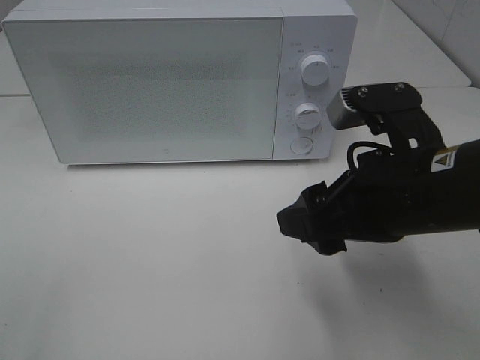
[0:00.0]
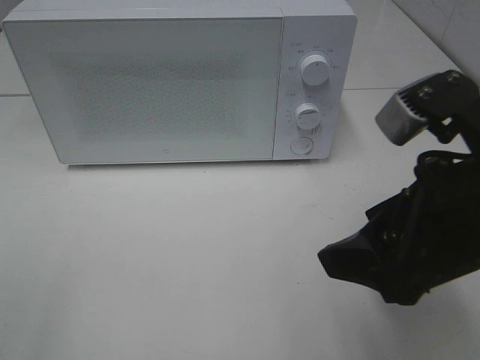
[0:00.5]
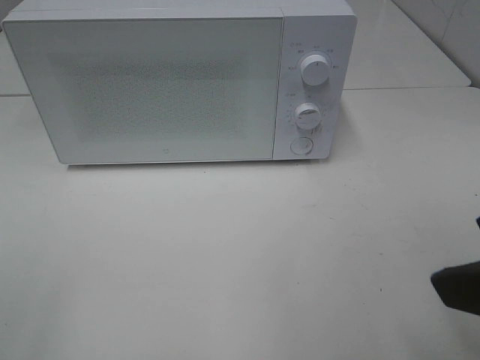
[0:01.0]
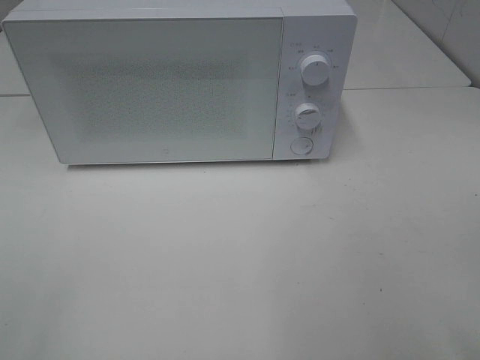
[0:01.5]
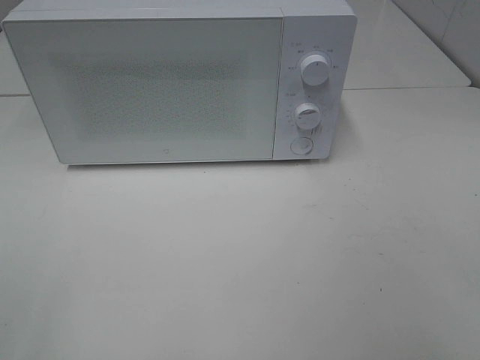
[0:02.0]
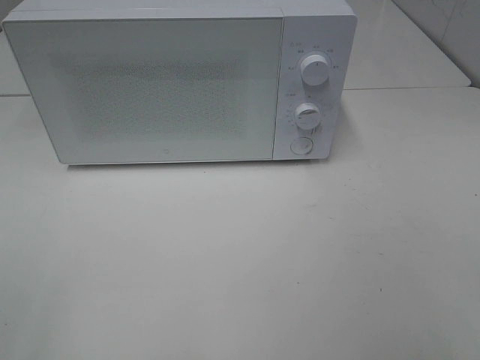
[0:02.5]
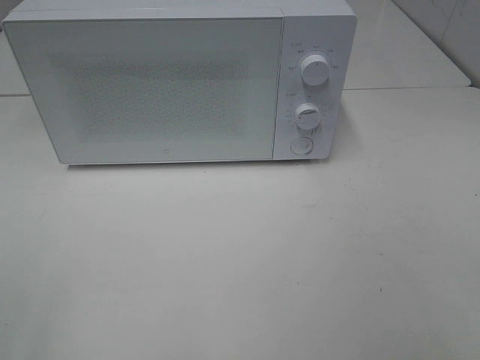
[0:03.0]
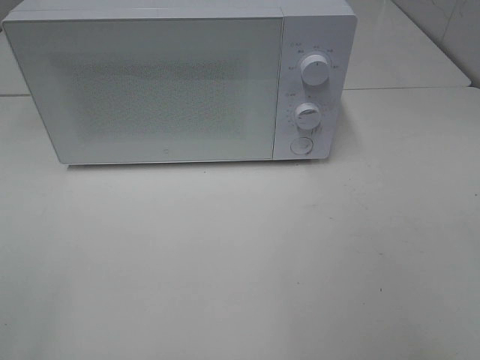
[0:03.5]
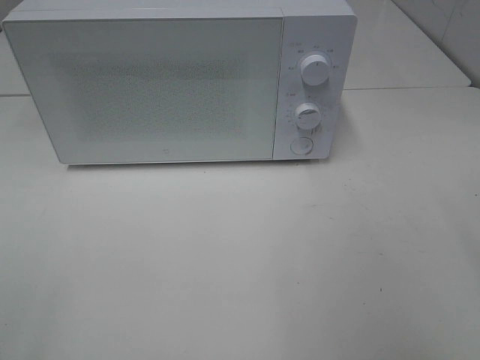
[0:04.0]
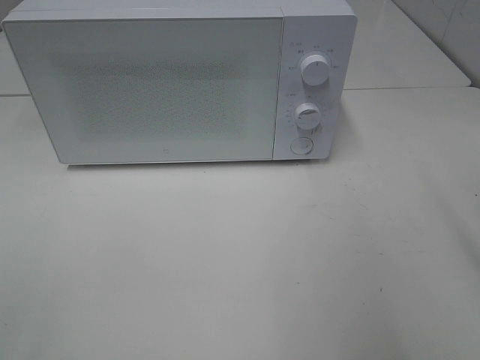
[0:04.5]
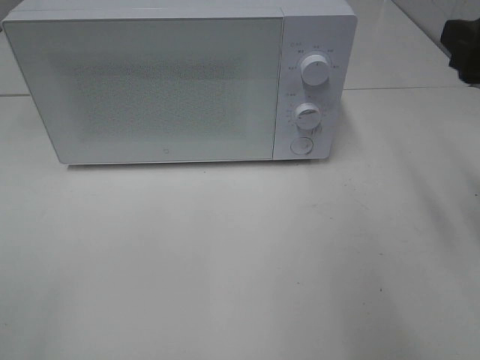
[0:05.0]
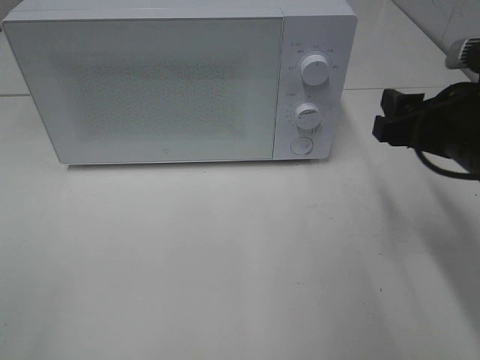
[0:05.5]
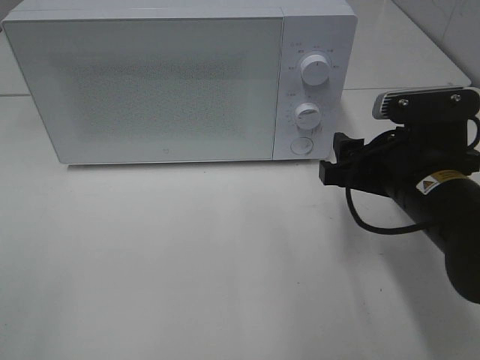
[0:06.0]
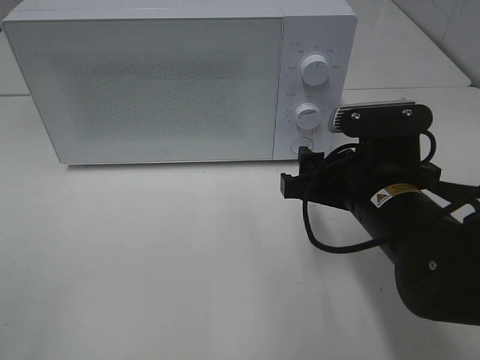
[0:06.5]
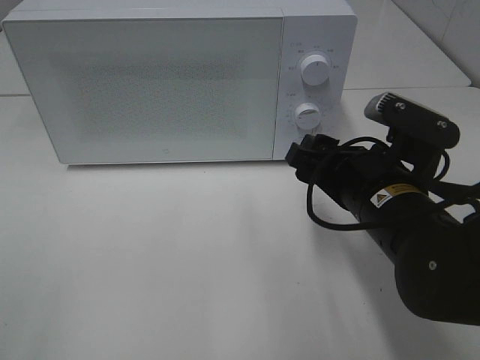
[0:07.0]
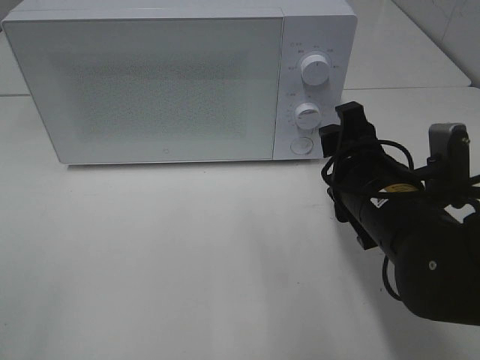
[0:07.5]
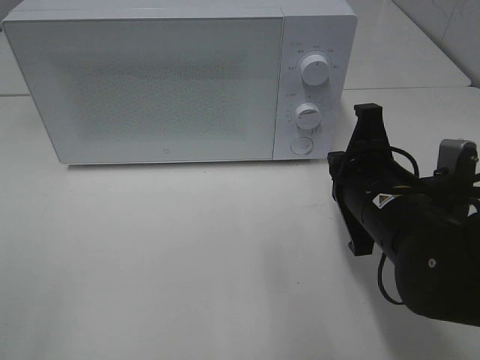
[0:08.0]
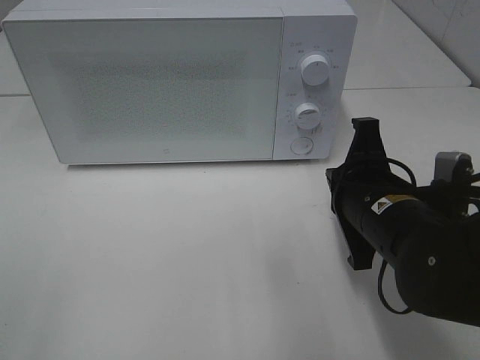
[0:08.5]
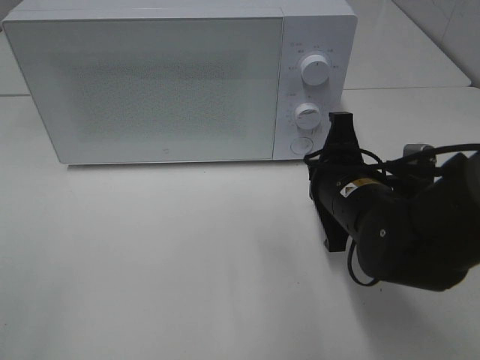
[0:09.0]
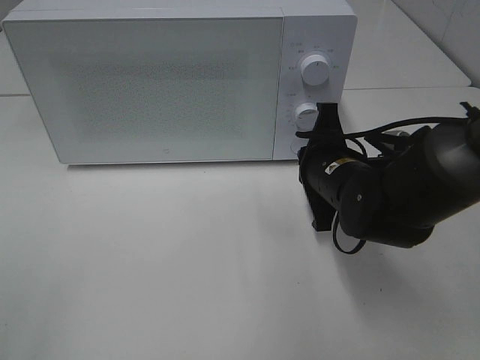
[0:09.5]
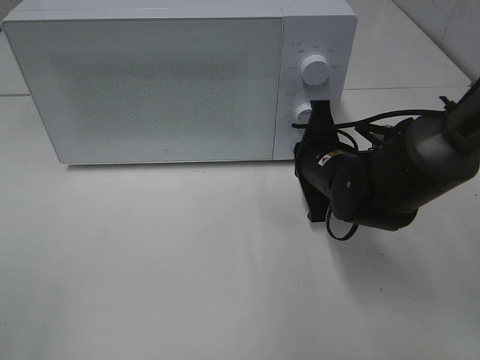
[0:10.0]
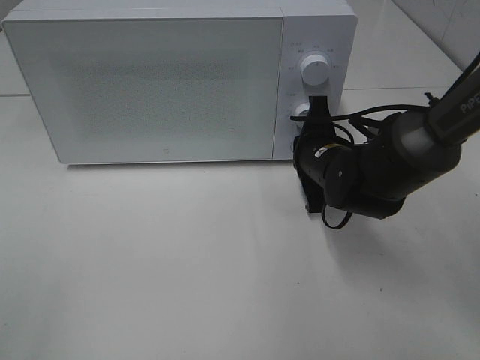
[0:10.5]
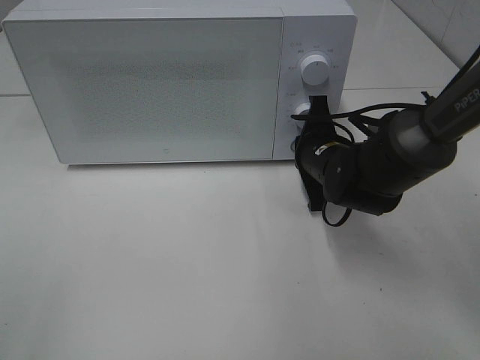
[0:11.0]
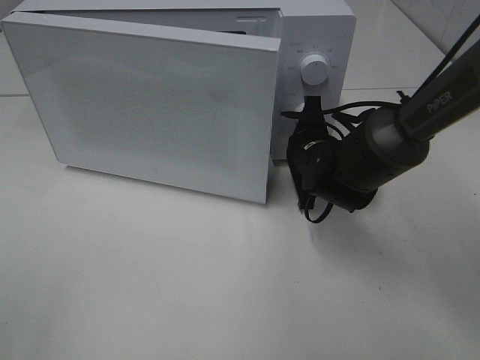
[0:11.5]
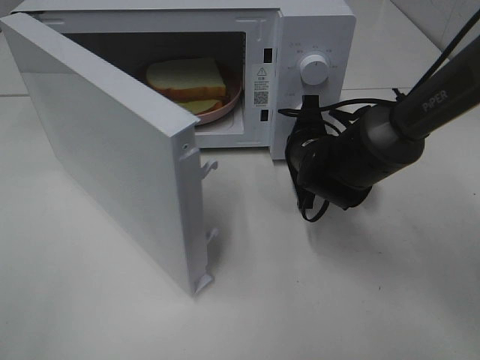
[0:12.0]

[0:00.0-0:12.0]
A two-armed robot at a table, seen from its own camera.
Task of the whole recording: Heat Sandwich.
0:00.0 to 0:02.0: The right gripper is displaced backward, to the right and upward by some 25 cm.
0:04.0 to 0:06.0: The right gripper shifts about 25 cm downward, forward and to the left.
0:06.0 to 0:08.0: The right gripper closes its fingers.
0:08.0 to 0:10.0: The right gripper heads forward, covering approximately 10 cm.

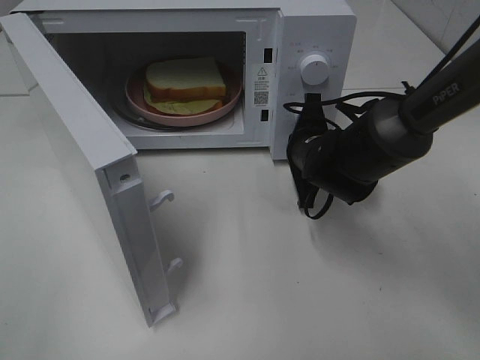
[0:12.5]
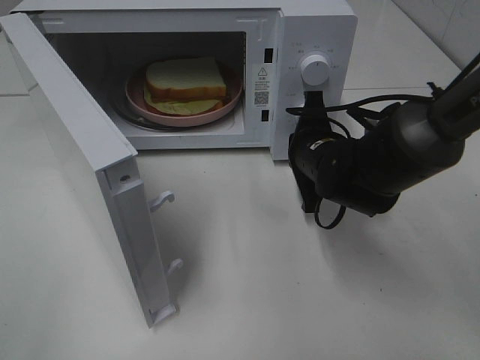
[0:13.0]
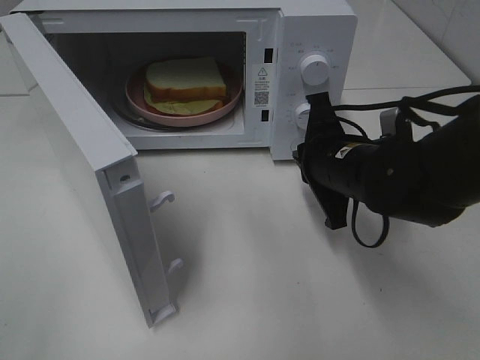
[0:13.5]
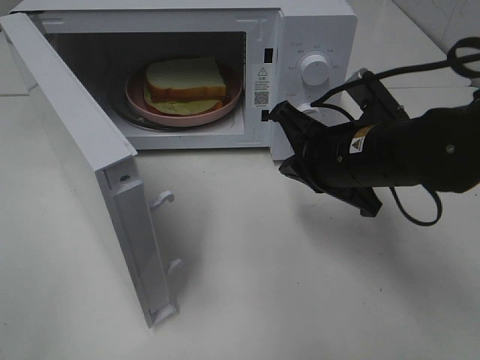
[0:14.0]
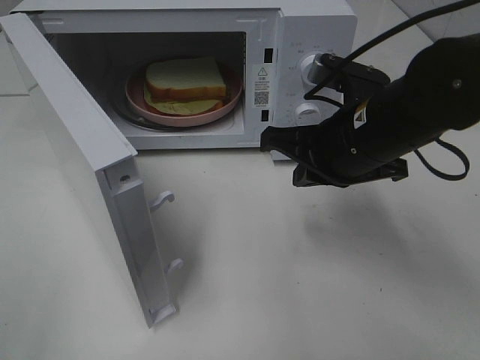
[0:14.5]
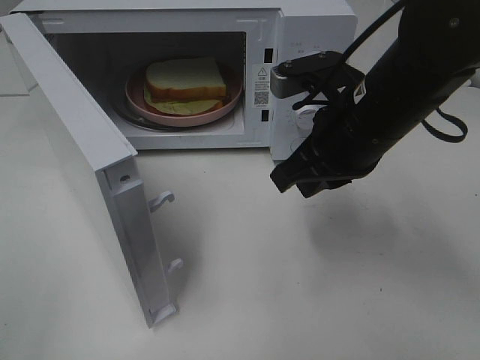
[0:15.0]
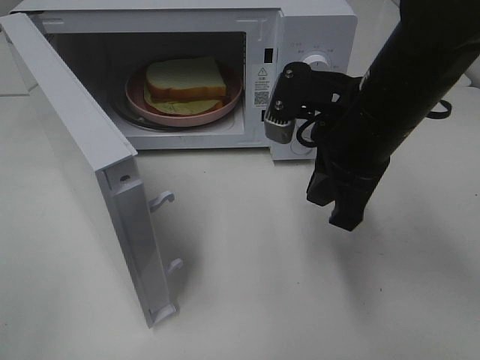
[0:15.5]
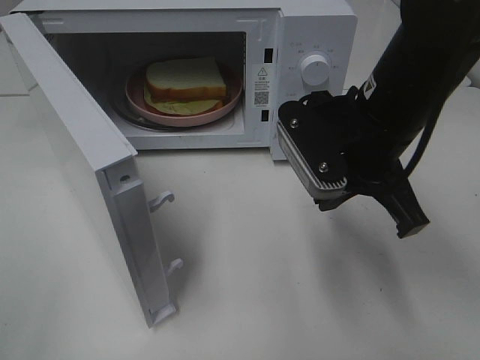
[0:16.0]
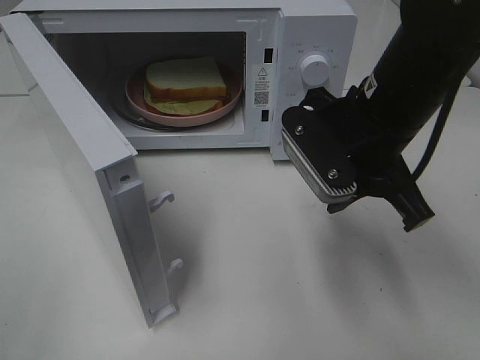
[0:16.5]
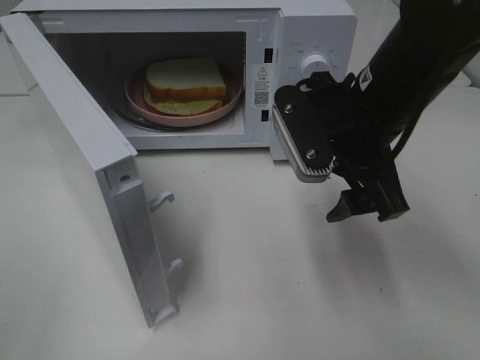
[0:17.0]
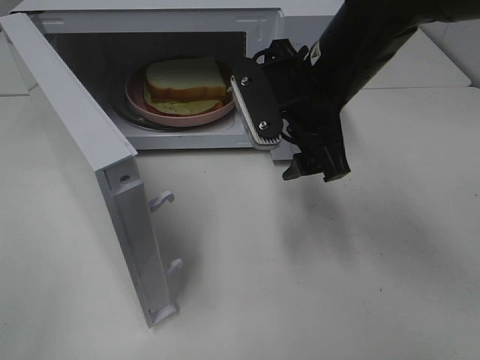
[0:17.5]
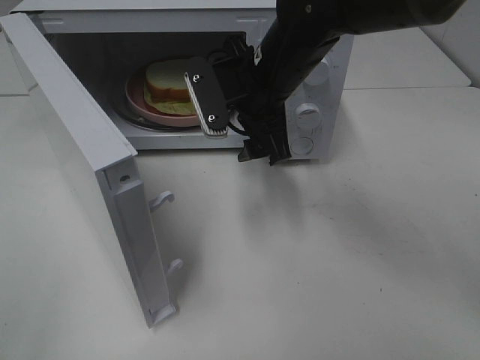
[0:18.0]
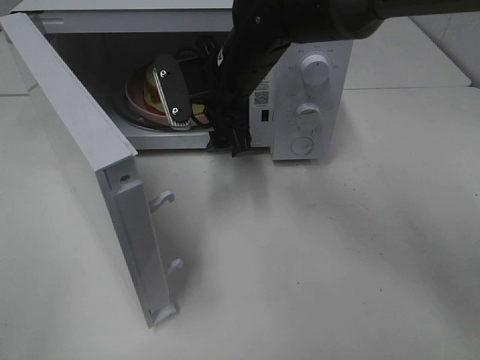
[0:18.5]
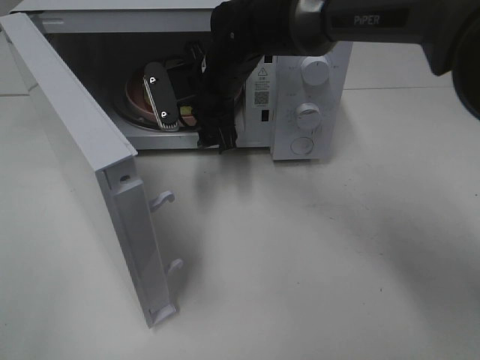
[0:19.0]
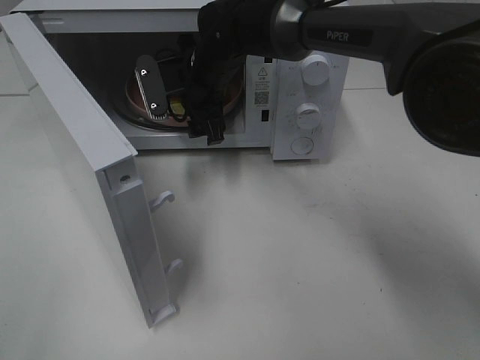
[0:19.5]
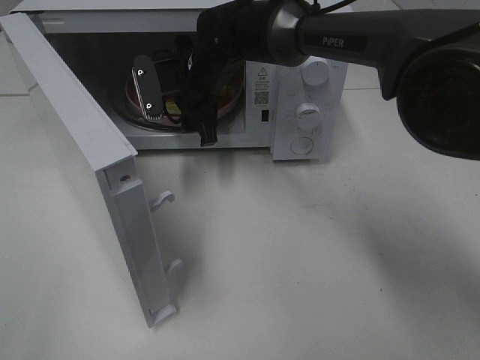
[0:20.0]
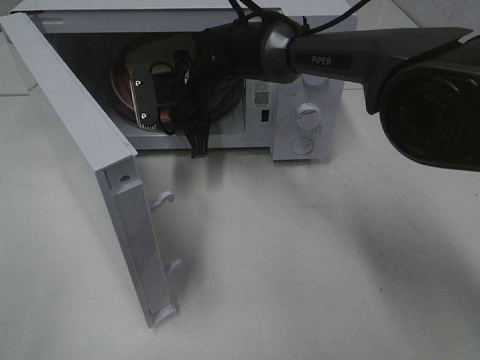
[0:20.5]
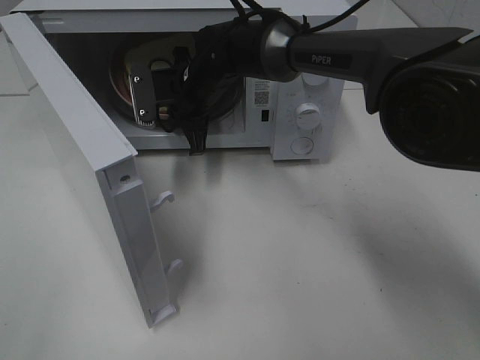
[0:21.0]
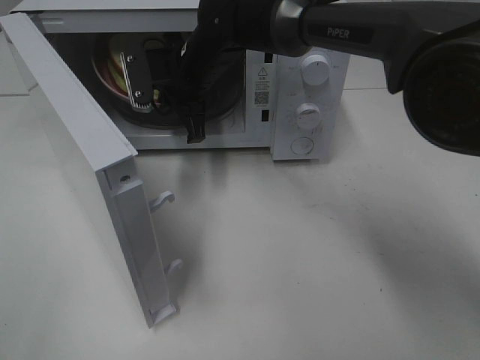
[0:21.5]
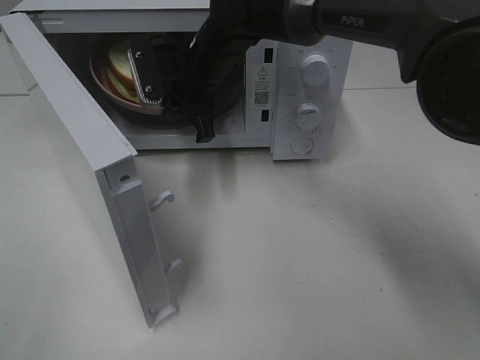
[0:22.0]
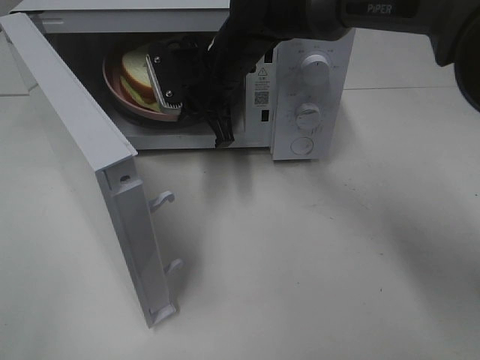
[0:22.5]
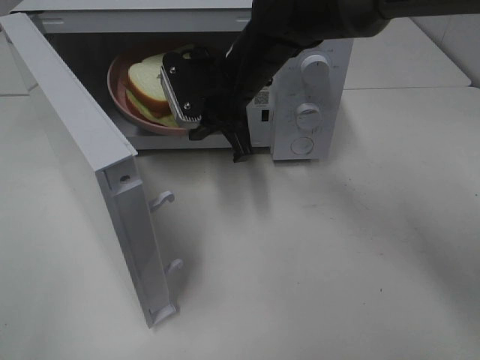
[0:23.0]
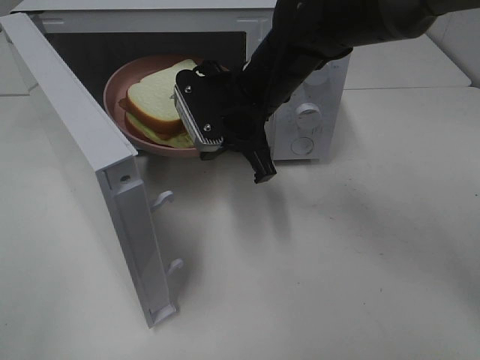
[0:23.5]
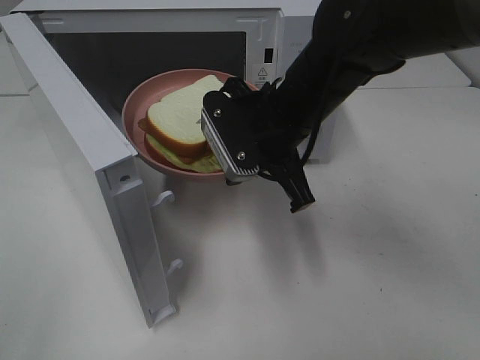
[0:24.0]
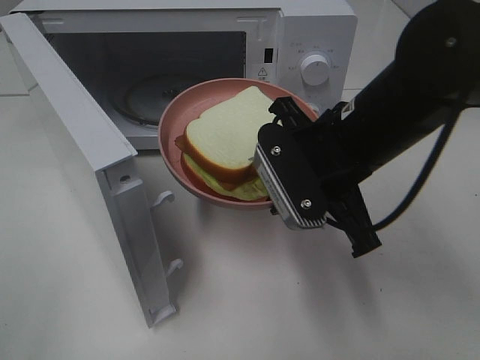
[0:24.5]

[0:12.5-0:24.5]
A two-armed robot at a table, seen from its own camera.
Task of the whole recording: Heat Sandwich.
Step, 0:13.0 to 0:20.5: Right hand: grab the plate with the sandwich.
0:12.5 to 0:14.5: The right gripper travels upward and backward by approximately 15 cm.
0:14.5 to 0:16.5: The right gripper opens its fingers.
0:16.5 to 0:18.5: The right gripper shifts approximately 20 cm forward and to the left, and opens.
0:18.5 to 0:20.5: The right gripper goes roughly 5 cm forward, and closes its fingers.
0:20.5 to 0:22.5: The right gripper changes place by approximately 5 cm.
0:22.5 to 0:24.5: The right gripper heads backward and to the right, covering approximately 20 cm.

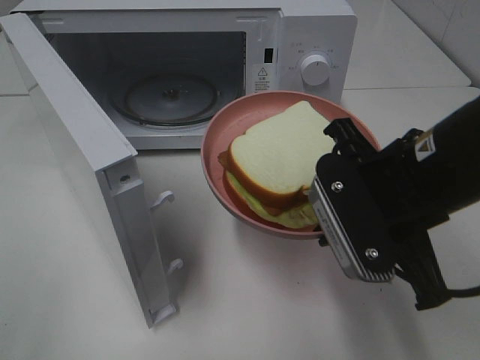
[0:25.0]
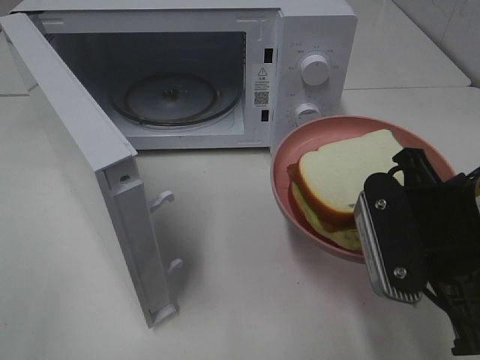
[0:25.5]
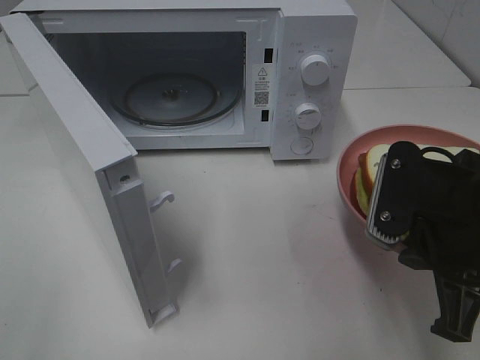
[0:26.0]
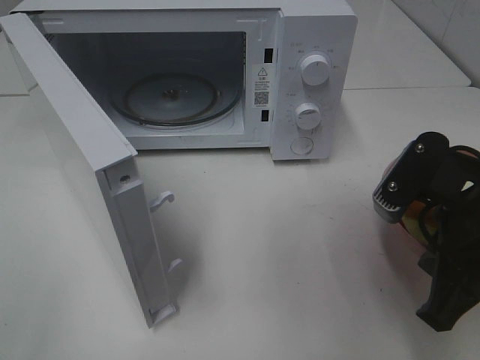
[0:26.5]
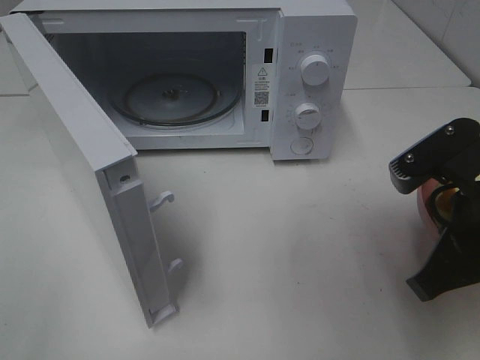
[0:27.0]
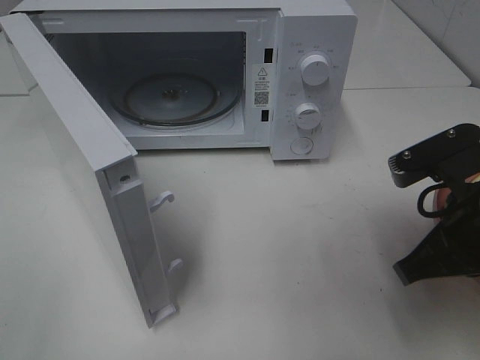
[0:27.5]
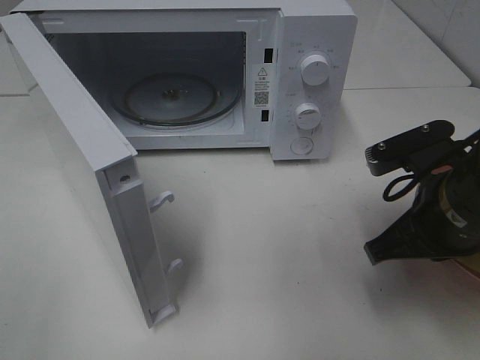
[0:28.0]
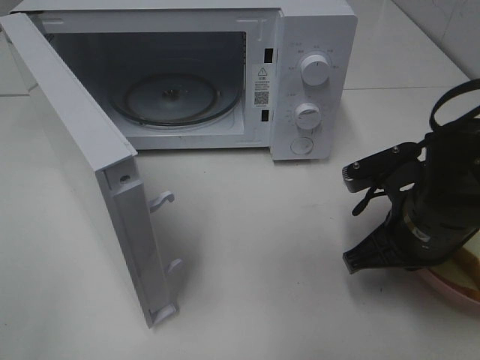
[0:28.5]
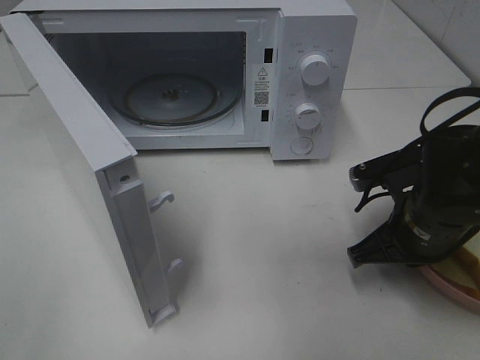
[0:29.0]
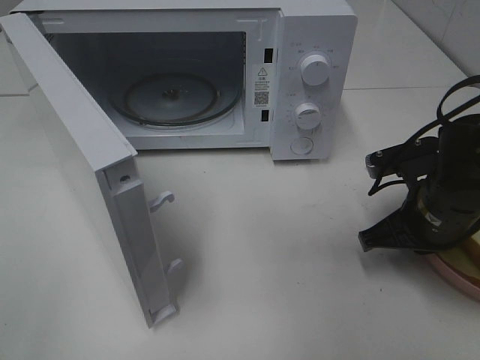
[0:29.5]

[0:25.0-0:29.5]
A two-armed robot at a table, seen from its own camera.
Task of the whole recording: Heat Sandwich.
0:25.0 to 0:27.0: The right gripper shifts about 5 cm to the right.
0:27.0 to 0:29.5: The right gripper goes some 10 cm downward and forward.
